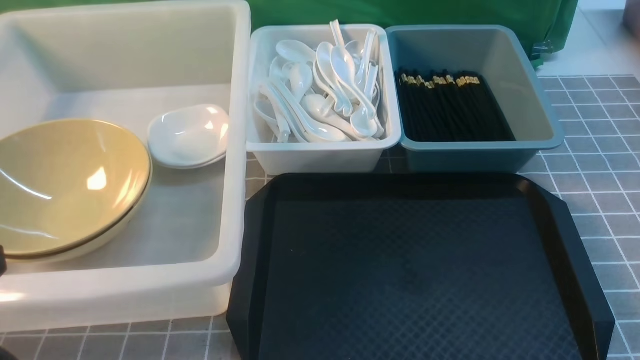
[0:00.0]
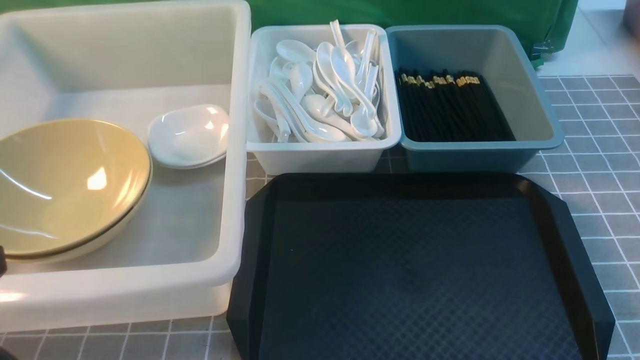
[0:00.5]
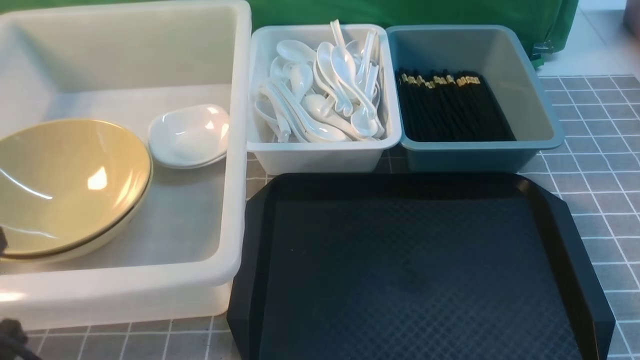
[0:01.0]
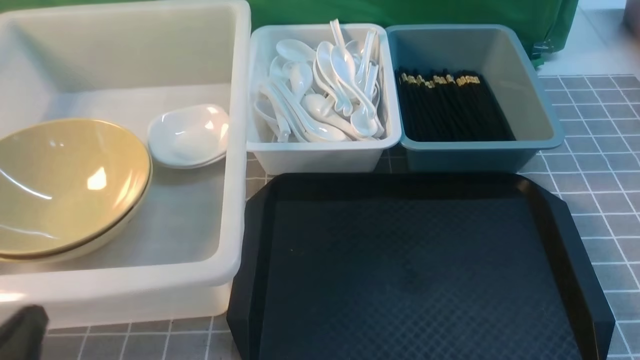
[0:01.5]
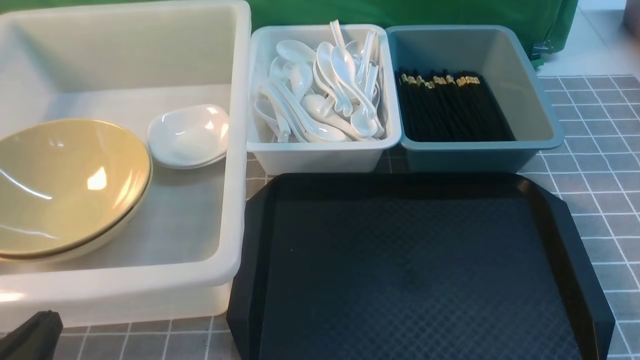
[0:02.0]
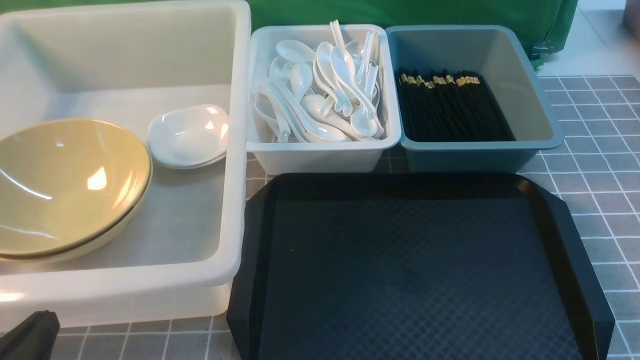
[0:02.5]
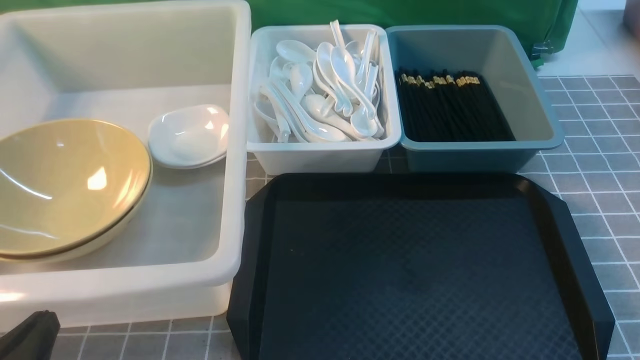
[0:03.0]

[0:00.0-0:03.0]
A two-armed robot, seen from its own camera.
Task of the whole recording: on grey table put chopsticks spoon bowls plates into blue grey white boxes.
0:00.0 to 0:01.5: The left gripper is displaced downward by some 15 cm.
